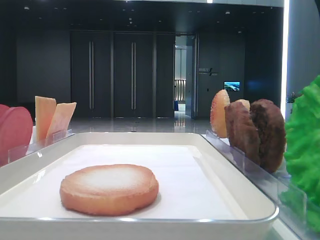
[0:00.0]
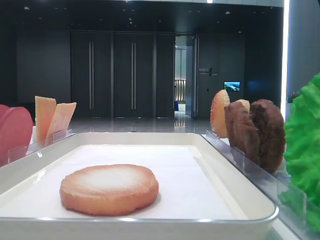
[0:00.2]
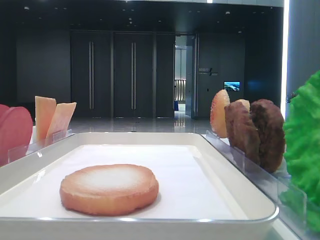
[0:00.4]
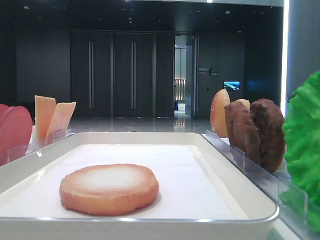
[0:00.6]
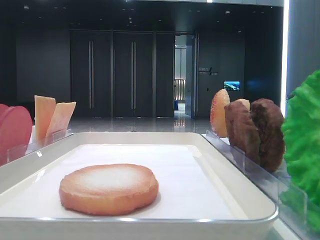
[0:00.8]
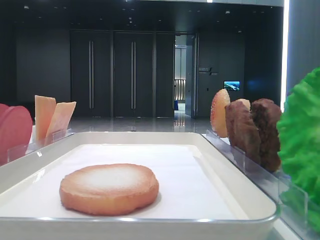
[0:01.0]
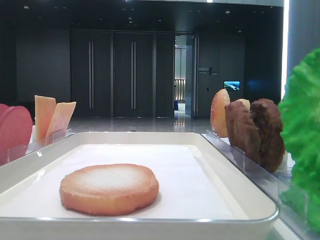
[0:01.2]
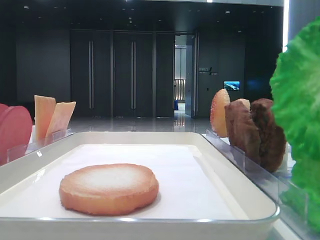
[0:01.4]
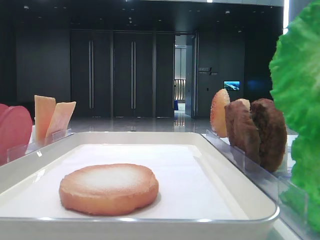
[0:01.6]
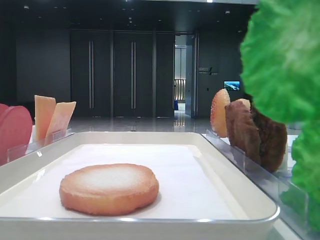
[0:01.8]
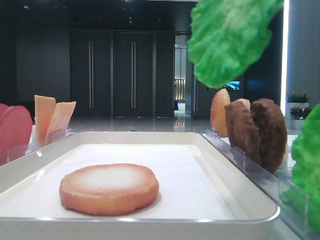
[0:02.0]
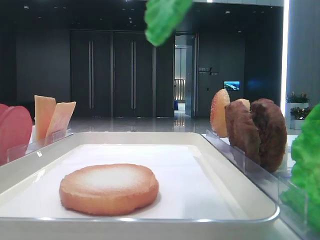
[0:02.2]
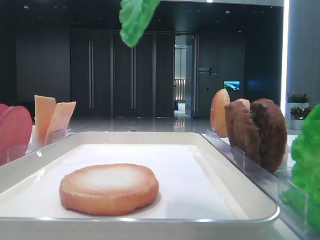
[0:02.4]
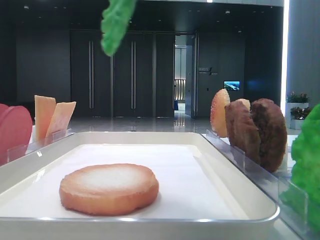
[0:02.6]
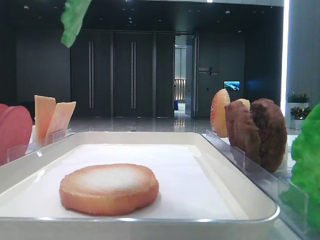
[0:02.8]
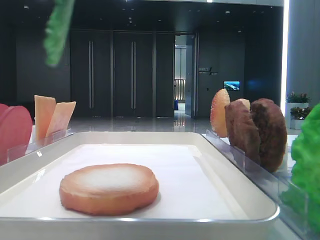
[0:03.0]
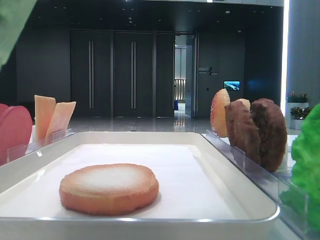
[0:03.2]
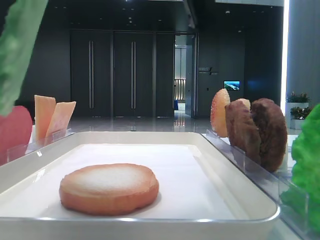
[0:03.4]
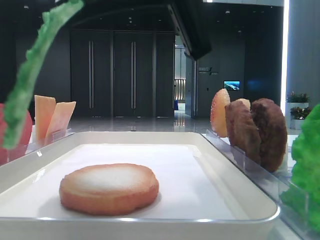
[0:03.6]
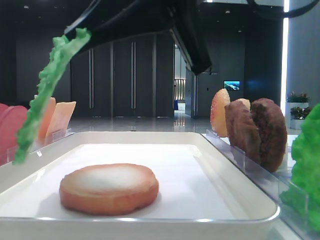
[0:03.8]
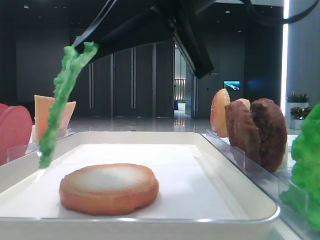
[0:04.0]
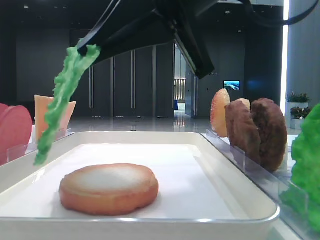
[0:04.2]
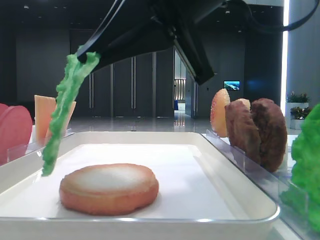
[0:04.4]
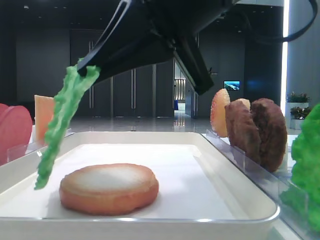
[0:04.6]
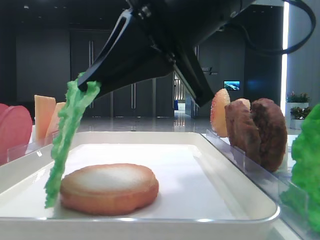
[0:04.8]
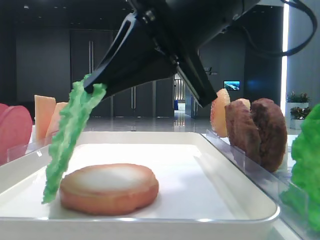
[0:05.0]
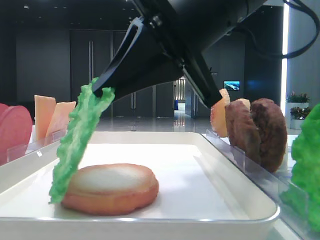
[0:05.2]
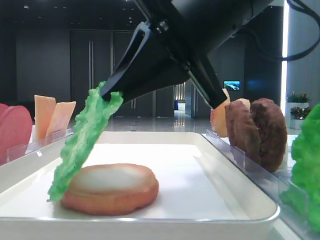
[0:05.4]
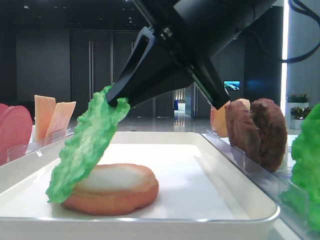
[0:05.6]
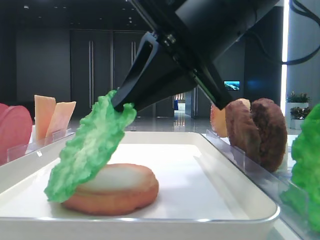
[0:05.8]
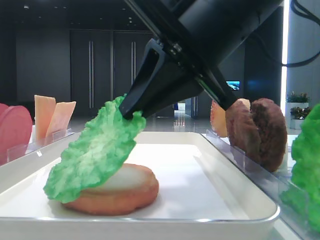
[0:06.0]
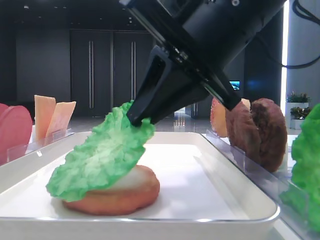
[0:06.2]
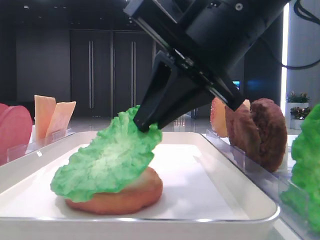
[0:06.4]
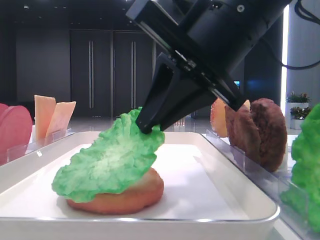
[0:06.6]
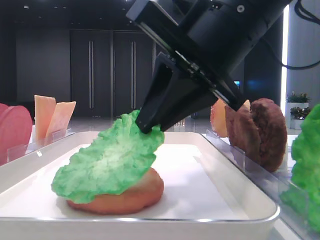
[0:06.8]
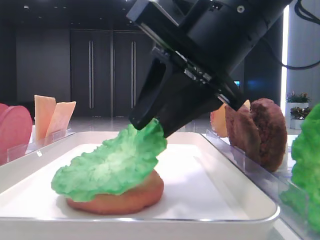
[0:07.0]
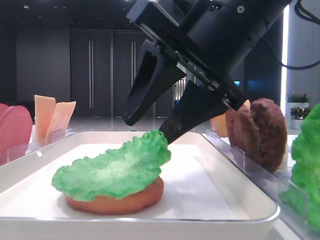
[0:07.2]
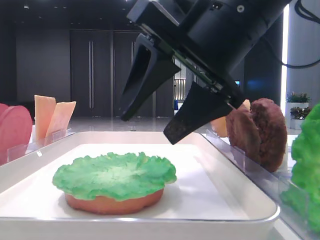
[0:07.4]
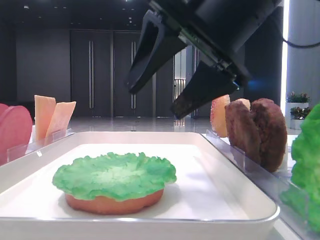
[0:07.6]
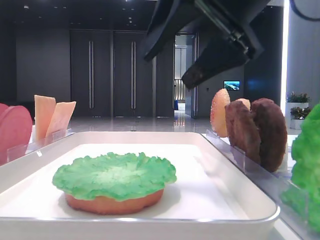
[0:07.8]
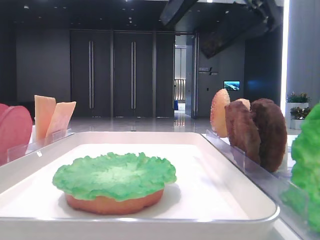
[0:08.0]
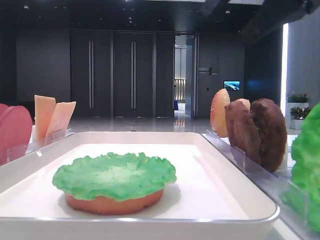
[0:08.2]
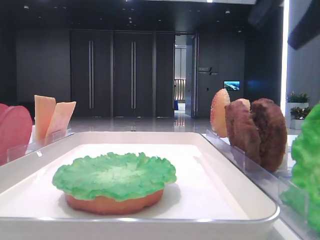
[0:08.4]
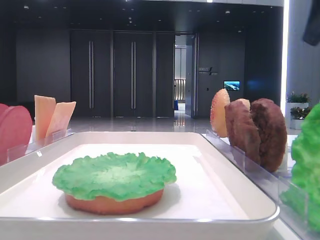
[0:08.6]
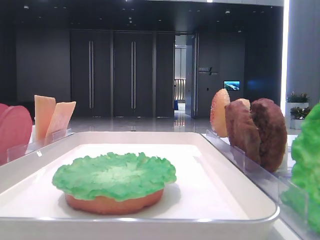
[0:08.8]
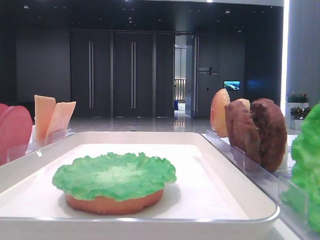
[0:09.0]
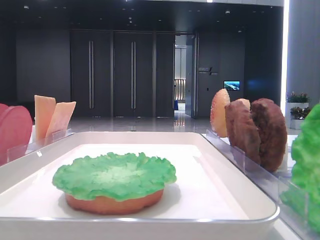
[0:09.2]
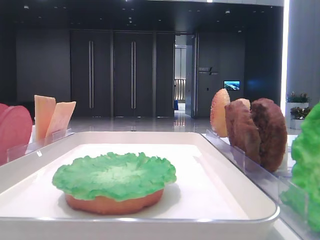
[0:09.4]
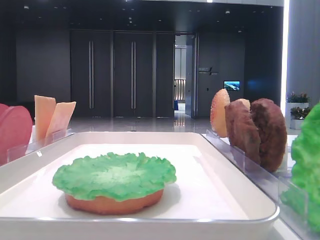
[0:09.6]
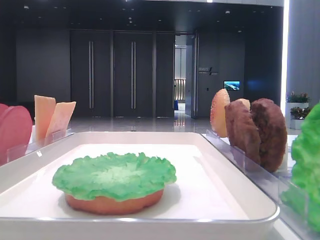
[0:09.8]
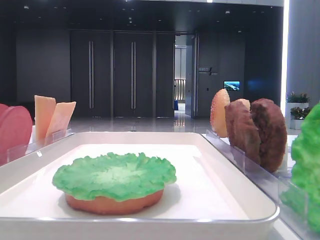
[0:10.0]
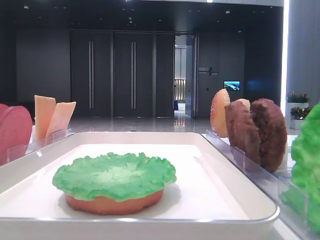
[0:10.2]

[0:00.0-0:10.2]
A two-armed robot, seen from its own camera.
Step, 0:00.6 to 0:07.4: Place the lettuce leaf on the bottom bread with the right hand.
0:00.0 to 0:01.4: The grippers make only small movements.
0:01.4 to 0:03.0: The right gripper travels to the left by roughly 10 cm.
0:03.0 to 0:04.4: The right gripper shifts about 10 cm downward and forward.
0:04.4 to 0:05.8: The grippers move only a little.
0:05.8 to 0:07.2: The right gripper opens its fingers.
0:07.2 to 0:08.8: The right gripper travels to the right and upward by some 25 cm.

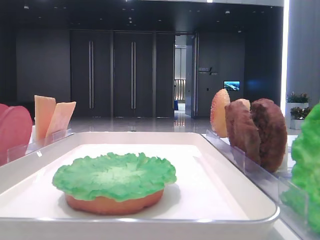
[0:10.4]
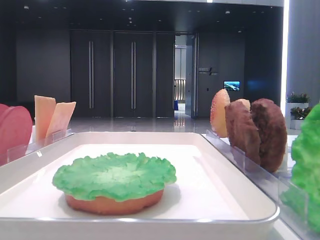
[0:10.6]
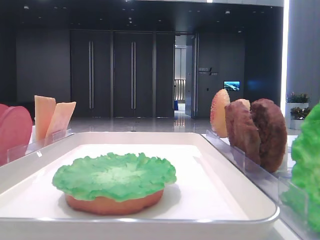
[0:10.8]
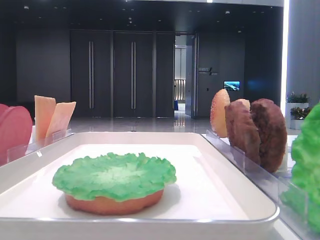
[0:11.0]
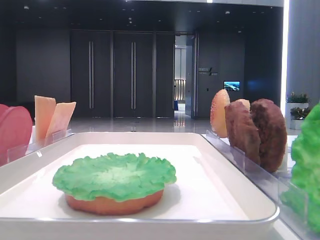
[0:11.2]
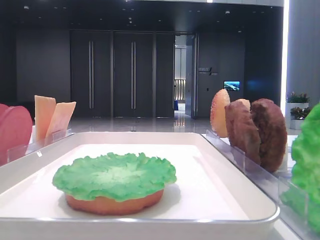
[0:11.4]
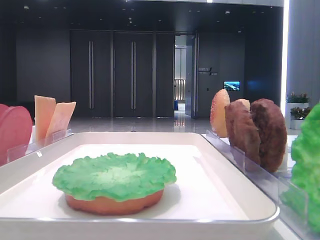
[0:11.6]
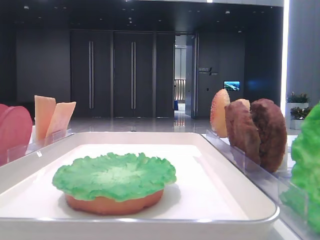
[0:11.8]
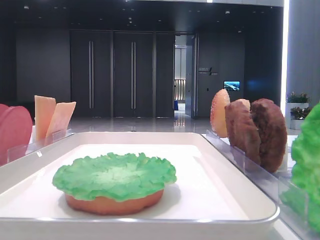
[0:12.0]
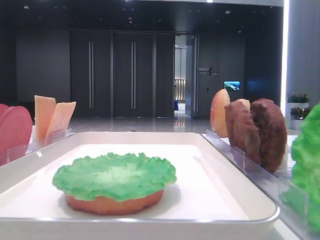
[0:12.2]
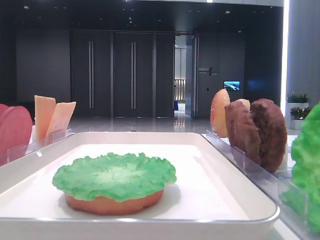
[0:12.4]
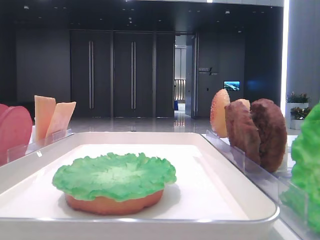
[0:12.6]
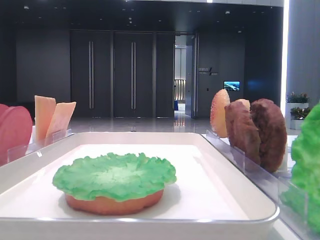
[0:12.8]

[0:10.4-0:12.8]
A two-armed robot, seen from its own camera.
0:11.6 to 0:12.8: Both grippers stay put.

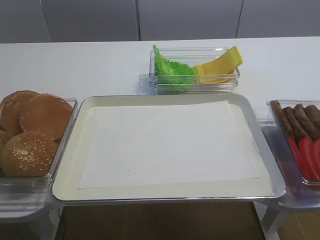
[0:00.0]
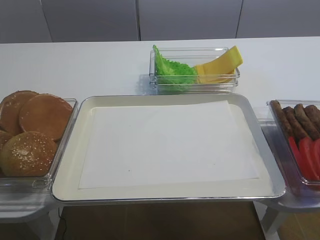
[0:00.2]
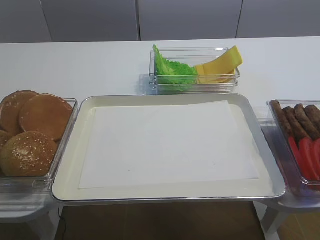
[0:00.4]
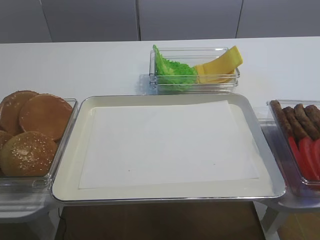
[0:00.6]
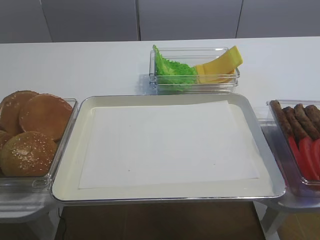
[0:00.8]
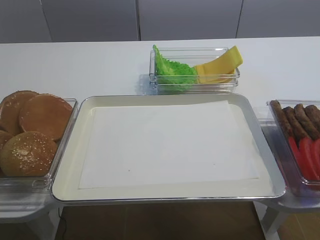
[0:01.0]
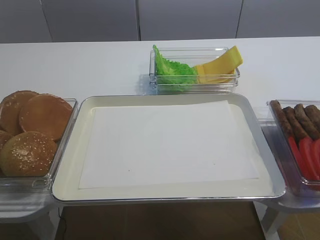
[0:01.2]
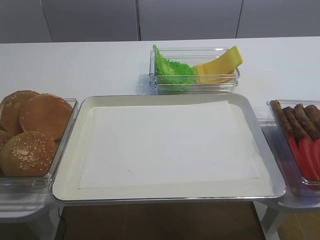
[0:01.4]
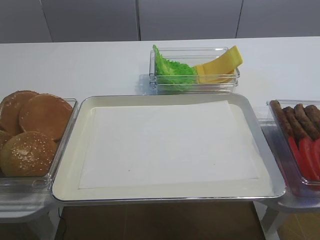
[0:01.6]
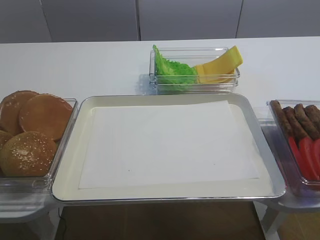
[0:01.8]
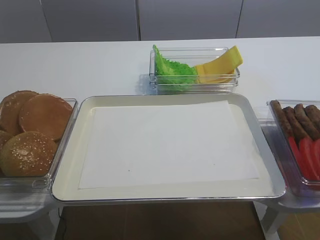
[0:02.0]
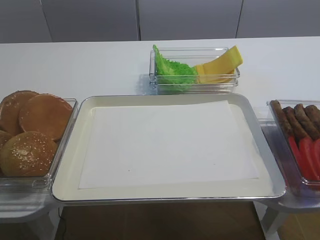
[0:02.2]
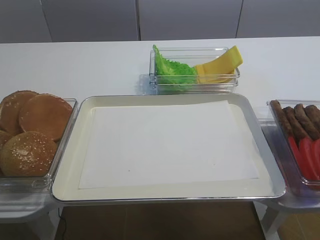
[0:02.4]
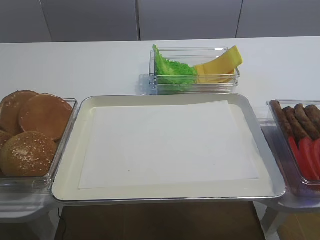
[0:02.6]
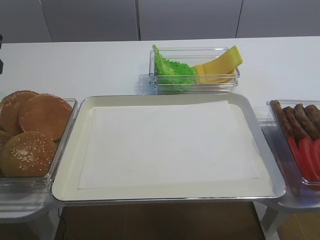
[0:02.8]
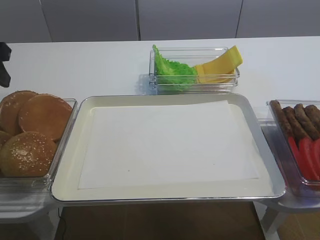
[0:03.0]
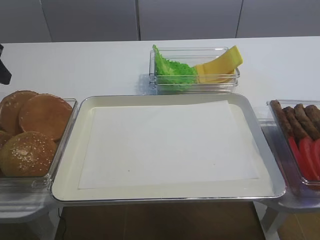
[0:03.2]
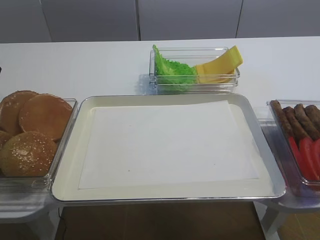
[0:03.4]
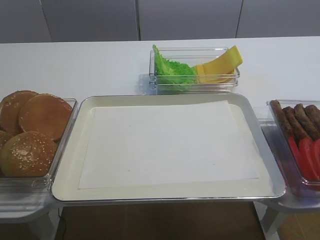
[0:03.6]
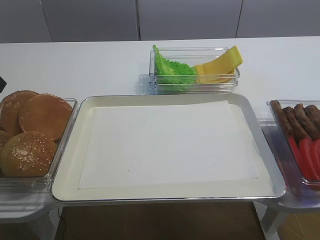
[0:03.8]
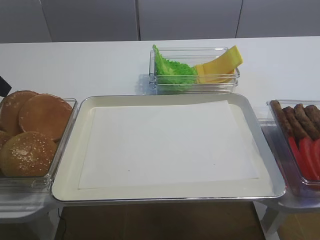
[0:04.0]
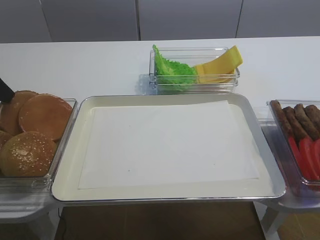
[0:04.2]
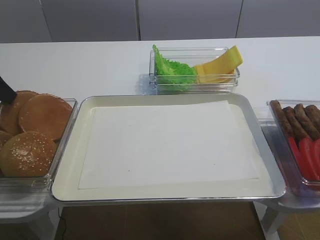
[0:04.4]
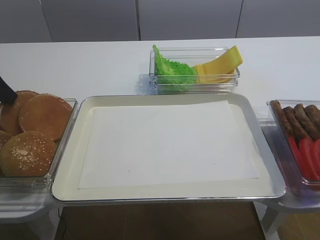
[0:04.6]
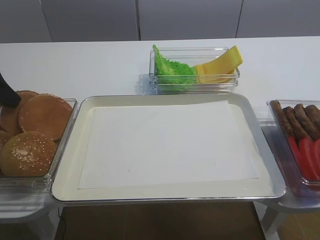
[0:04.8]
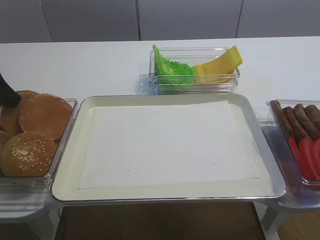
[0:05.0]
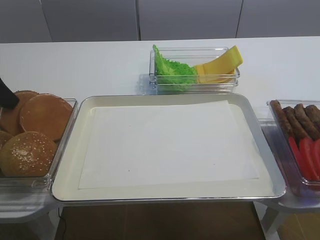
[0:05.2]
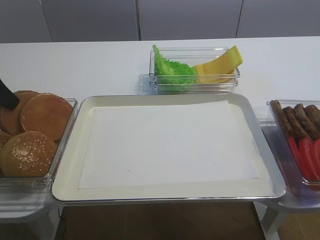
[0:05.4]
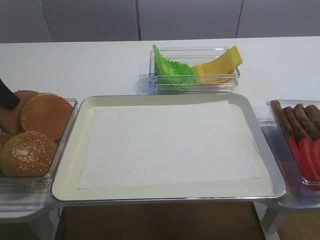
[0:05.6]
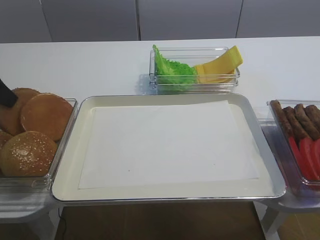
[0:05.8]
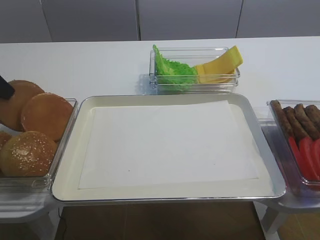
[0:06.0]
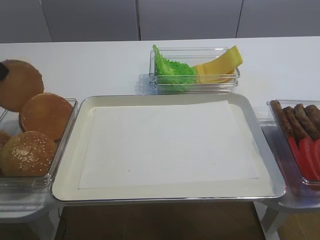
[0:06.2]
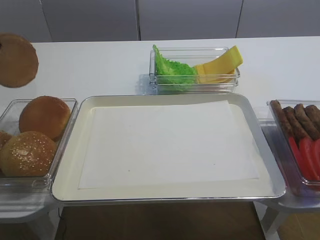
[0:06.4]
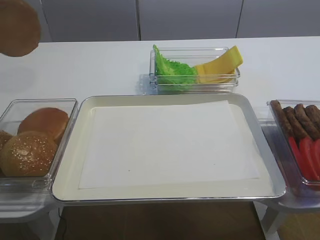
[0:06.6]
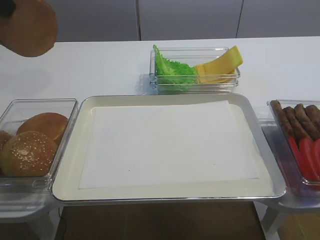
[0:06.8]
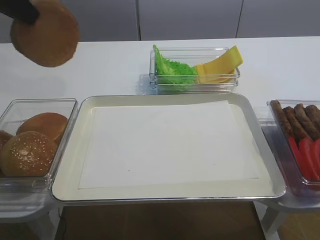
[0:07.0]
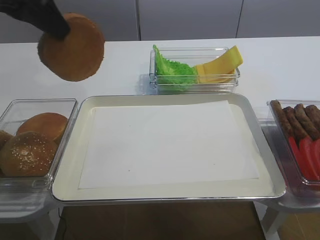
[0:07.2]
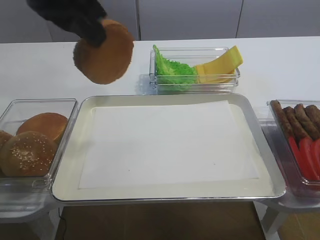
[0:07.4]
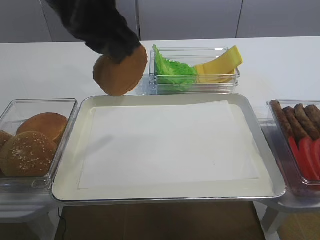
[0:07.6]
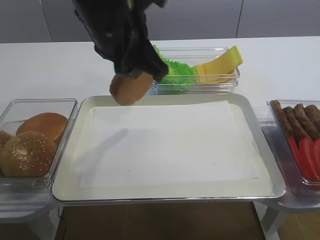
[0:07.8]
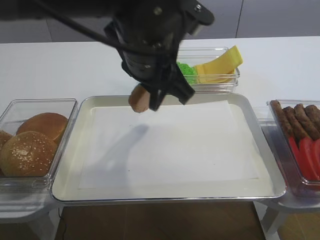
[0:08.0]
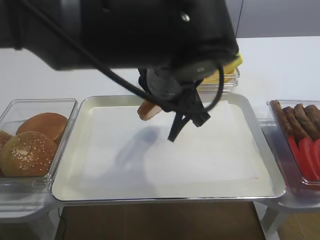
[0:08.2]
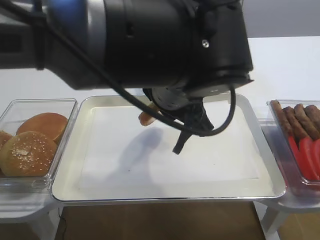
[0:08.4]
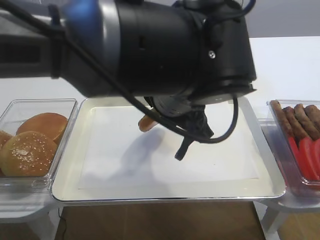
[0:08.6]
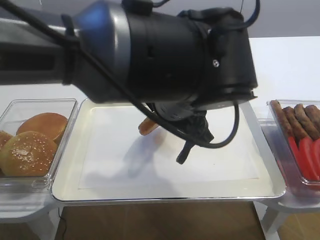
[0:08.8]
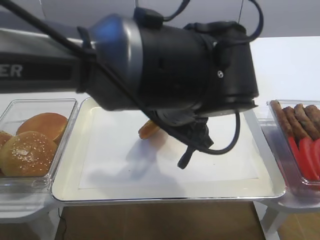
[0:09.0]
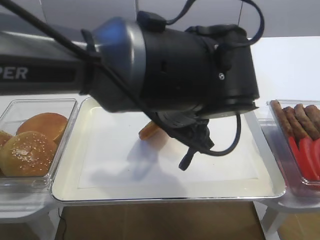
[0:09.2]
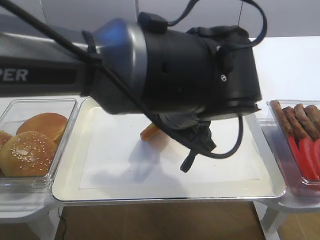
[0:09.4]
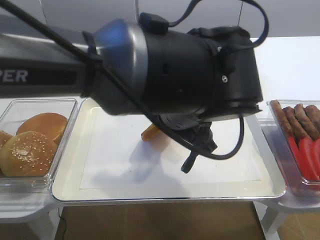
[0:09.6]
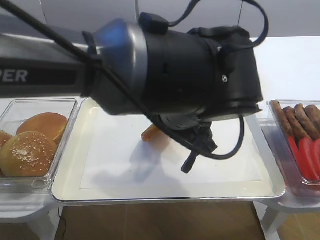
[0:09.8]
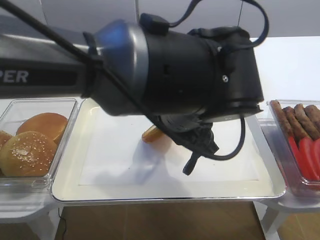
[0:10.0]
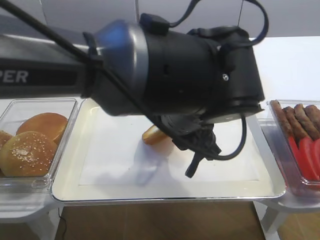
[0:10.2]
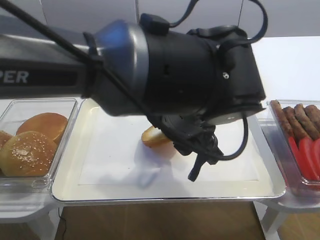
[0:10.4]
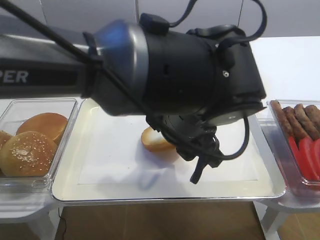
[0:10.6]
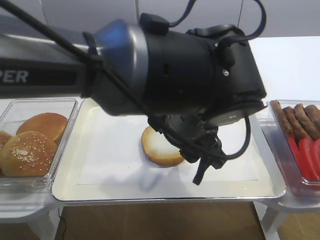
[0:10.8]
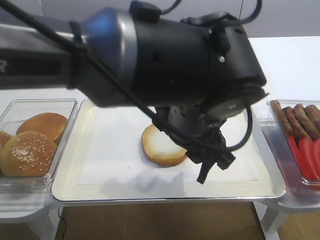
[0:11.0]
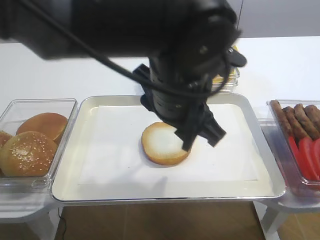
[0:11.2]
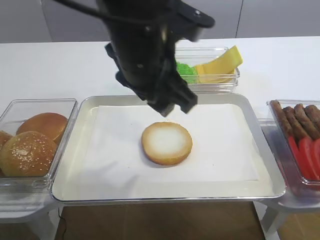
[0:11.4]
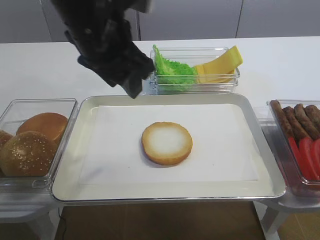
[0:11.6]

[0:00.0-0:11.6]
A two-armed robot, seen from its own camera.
Step, 0:00.0 to 0:06.4: Pick up the bread slice with the left gripper.
Step, 0:06.6 to 0:10.8: Place the bread slice on the tray with the left gripper.
0:05.8 to 0:07.2: The left gripper goes roughly 20 cm upward and to the right.
0:07.2 to 0:08.8: The left gripper shifts approximately 25 cm to the right and downward.
0:08.8 to 0:10.2: The left gripper opens.
0:10.2 to 0:11.6: The left gripper is displaced to the left and upward by about 15 cm.
